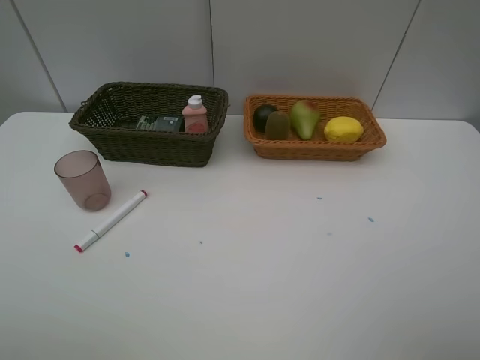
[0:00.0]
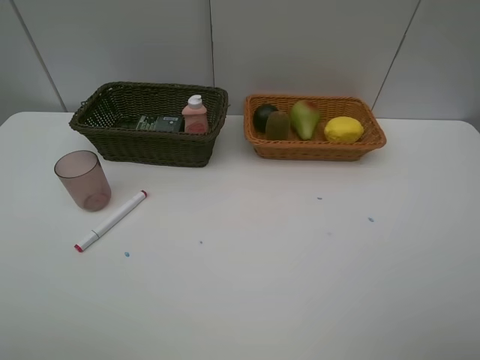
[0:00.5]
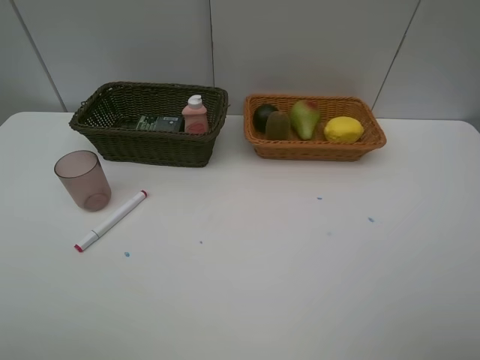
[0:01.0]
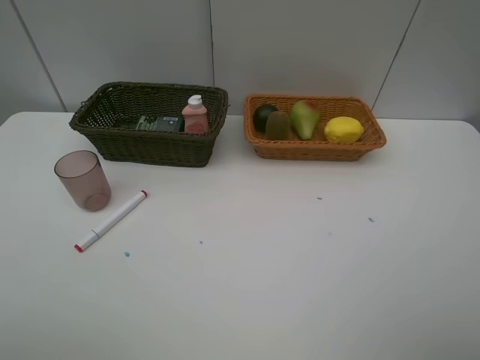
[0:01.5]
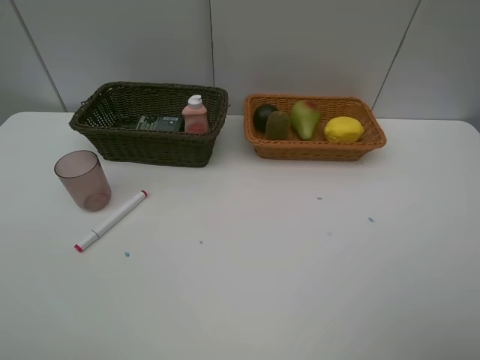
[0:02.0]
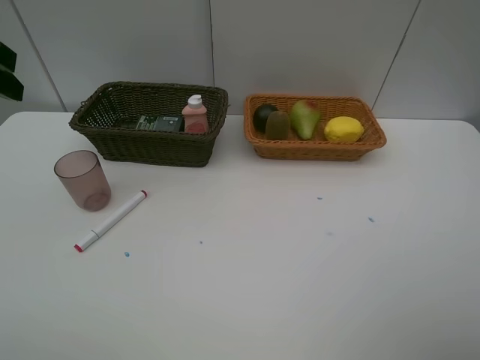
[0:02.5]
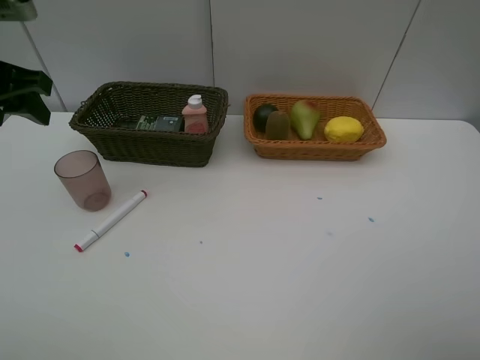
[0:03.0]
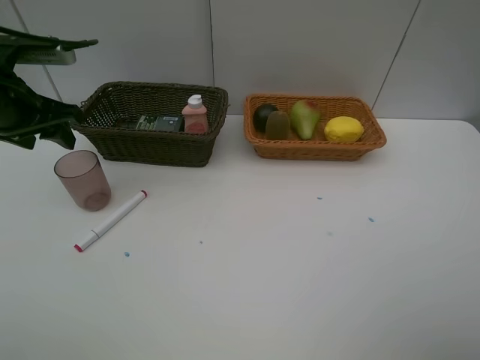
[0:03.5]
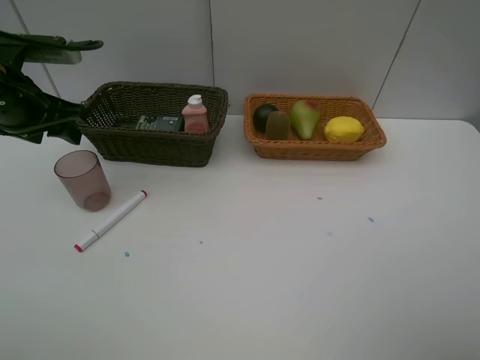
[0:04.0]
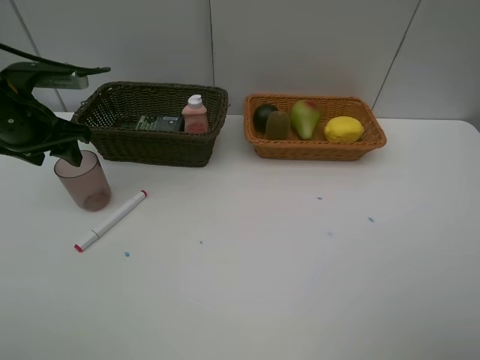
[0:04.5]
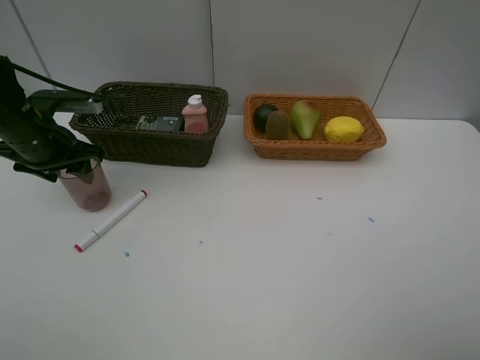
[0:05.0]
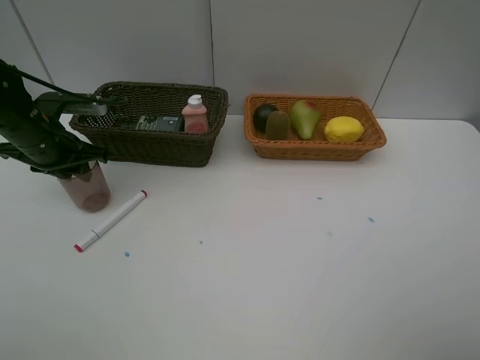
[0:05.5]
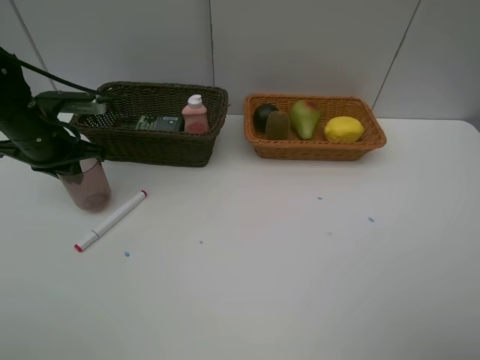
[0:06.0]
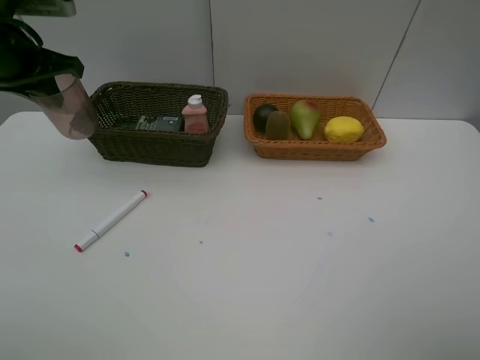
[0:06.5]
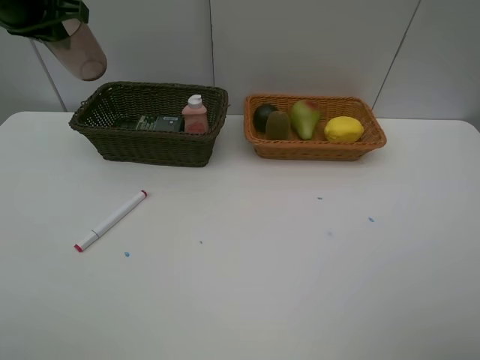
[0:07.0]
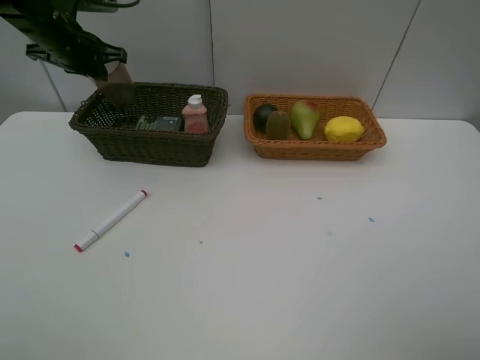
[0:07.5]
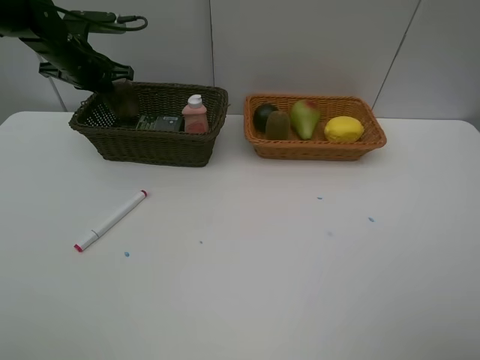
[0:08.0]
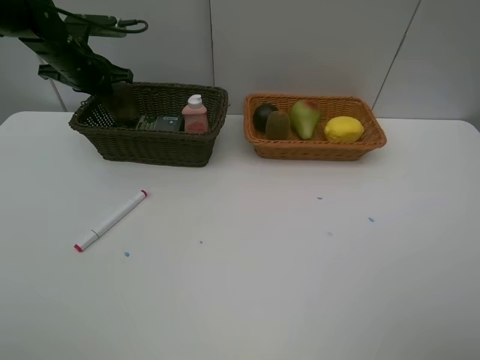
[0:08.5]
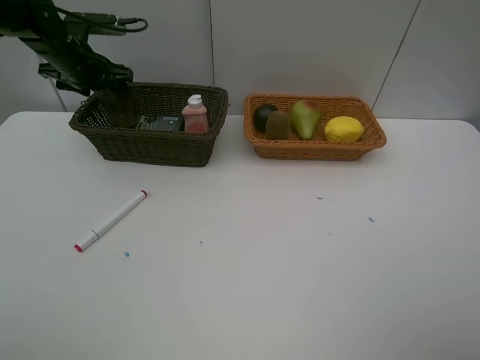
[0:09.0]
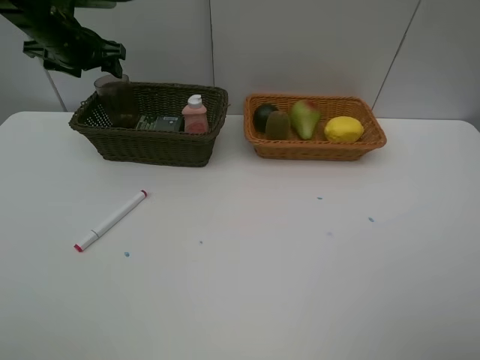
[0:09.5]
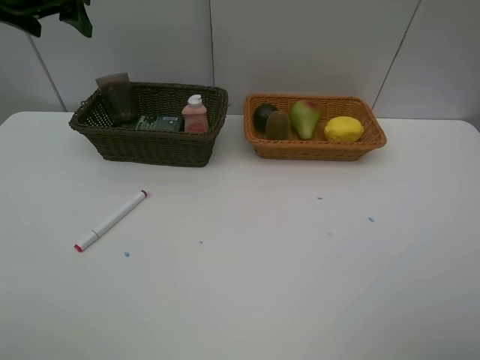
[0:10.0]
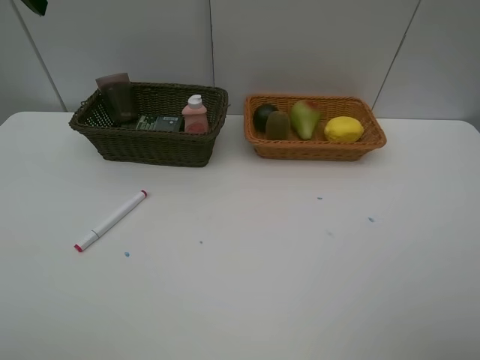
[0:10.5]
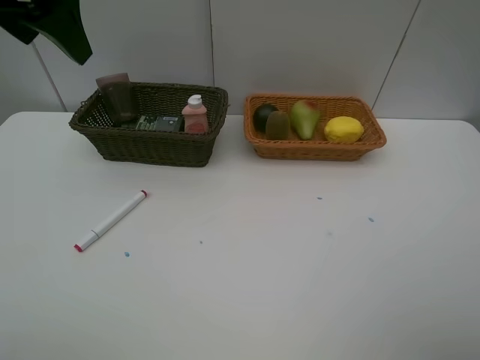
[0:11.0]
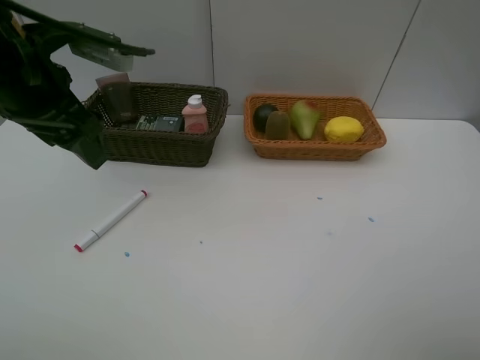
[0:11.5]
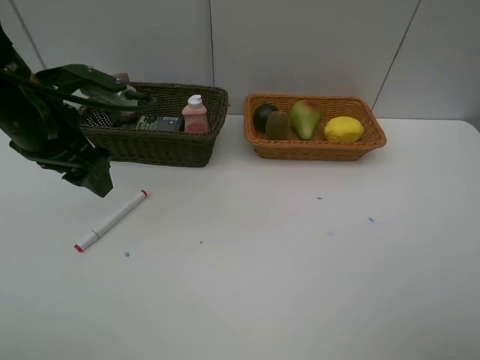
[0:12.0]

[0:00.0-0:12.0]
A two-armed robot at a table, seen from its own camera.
Task of the whole recording: Place multiple objects separately in different baskets.
Step, 0:00.0 to 0:06.0: Pick up the red cup with left gripper.
Step, 0:06.5 to 0:09.0: Place the red cup in the dark basket with left gripper.
0:02.0 to 0:04.0: The left gripper travels forward and downward by some 25 cm.
0:04.0 to 0:06.0: The left gripper moves downward, roughly 5 cm, and closes its fingers.
0:06.0 to 0:08.0: The left gripper moves forward, roughly 15 cm, and reaches approximately 15 cm upward, then returns.
0:08.0 to 0:10.0: The left gripper travels upward and backward by roughly 15 cm, and opens up.
0:10.0 to 0:12.0: The left gripper travels backward, downward and to the right by approximately 20 cm.

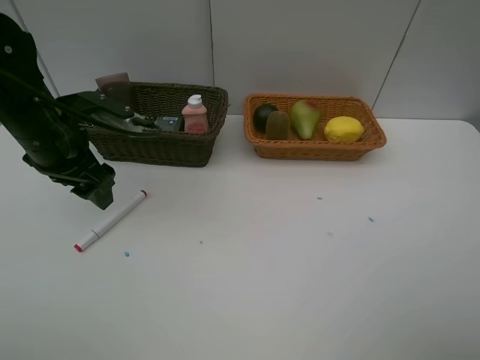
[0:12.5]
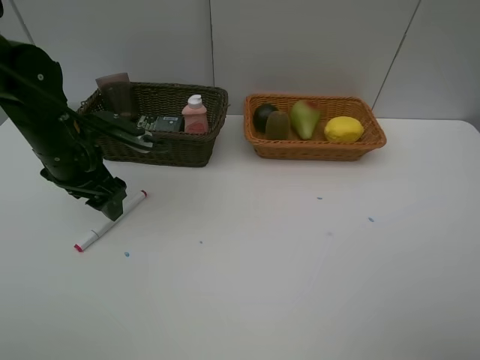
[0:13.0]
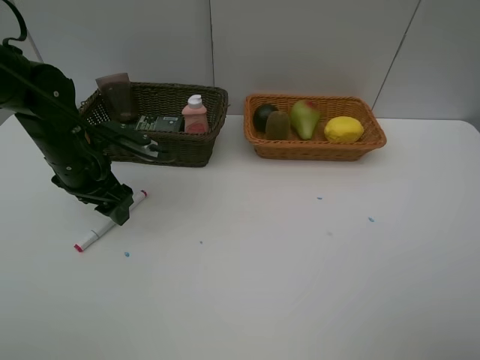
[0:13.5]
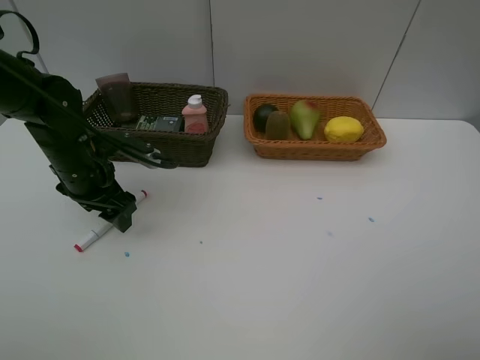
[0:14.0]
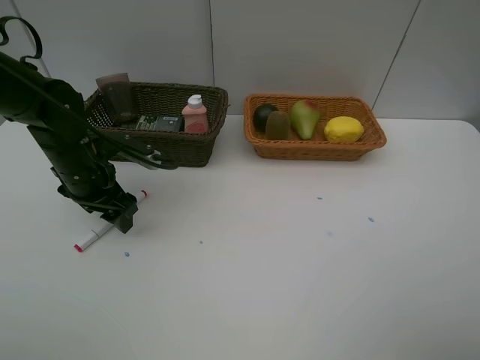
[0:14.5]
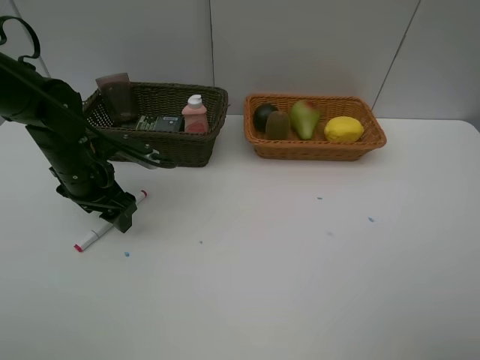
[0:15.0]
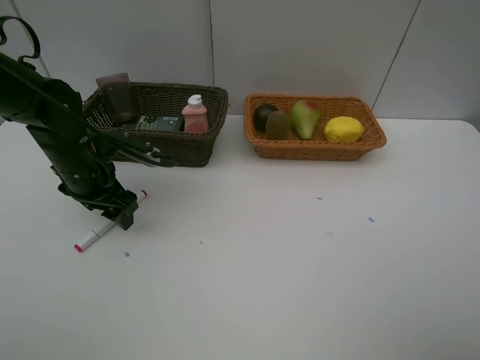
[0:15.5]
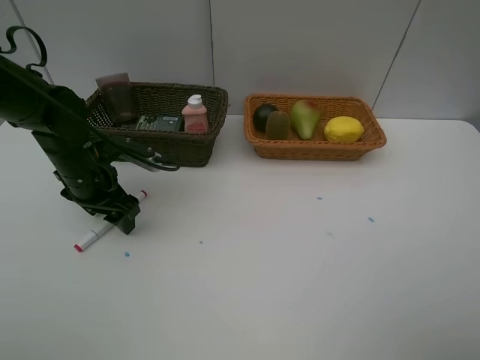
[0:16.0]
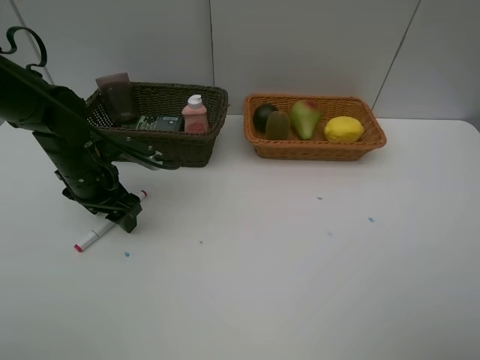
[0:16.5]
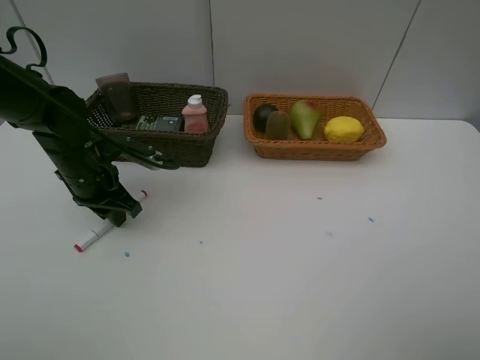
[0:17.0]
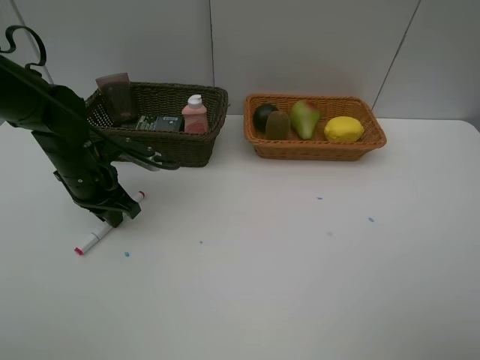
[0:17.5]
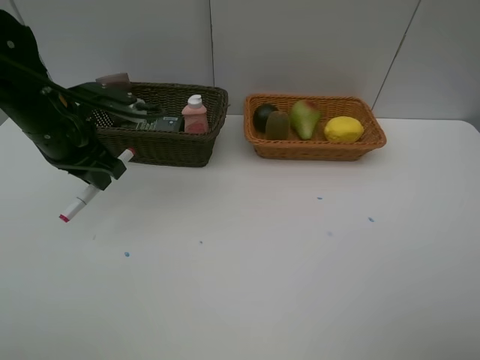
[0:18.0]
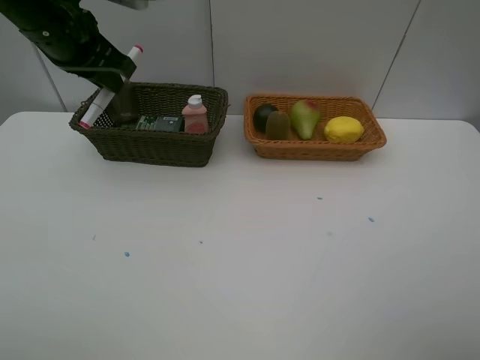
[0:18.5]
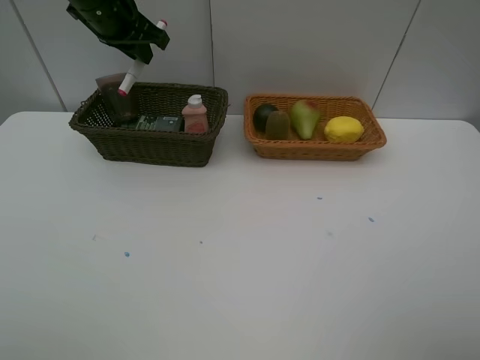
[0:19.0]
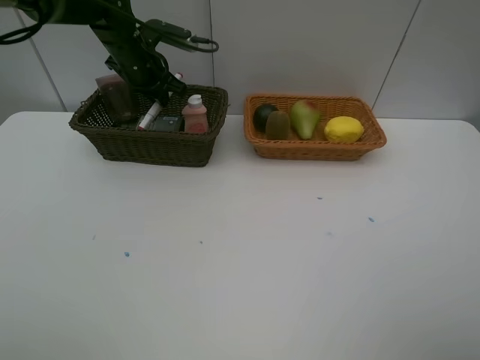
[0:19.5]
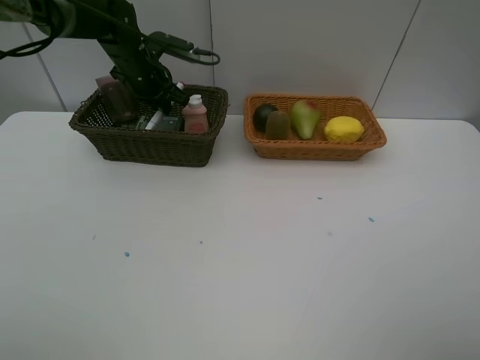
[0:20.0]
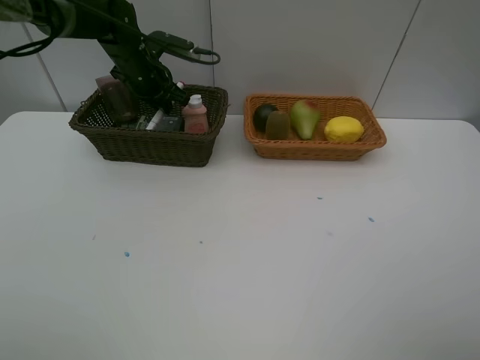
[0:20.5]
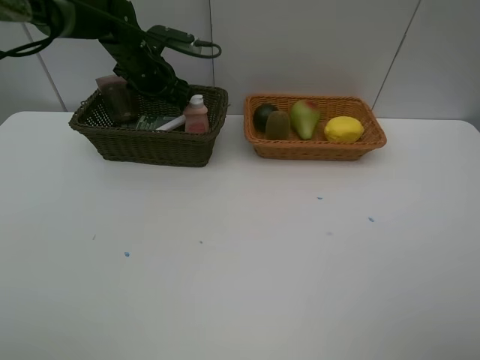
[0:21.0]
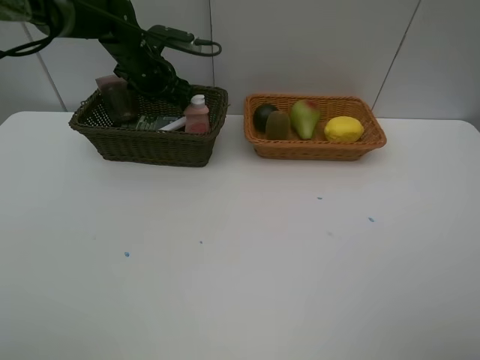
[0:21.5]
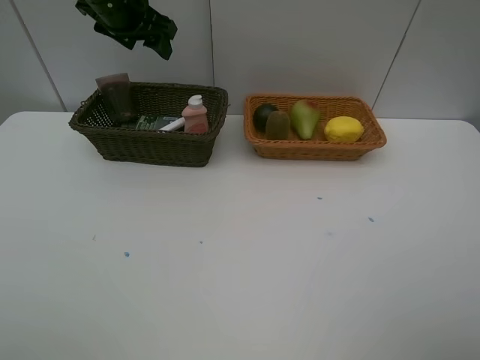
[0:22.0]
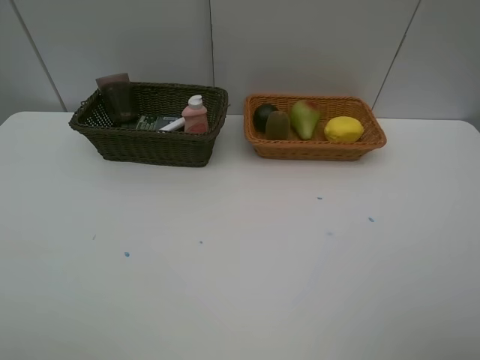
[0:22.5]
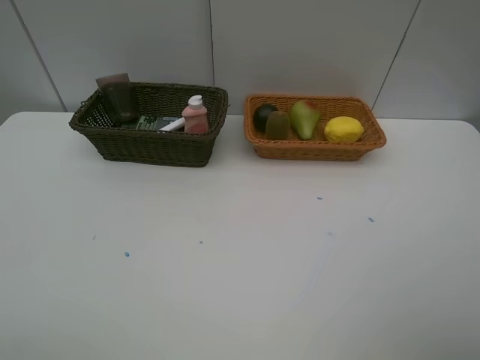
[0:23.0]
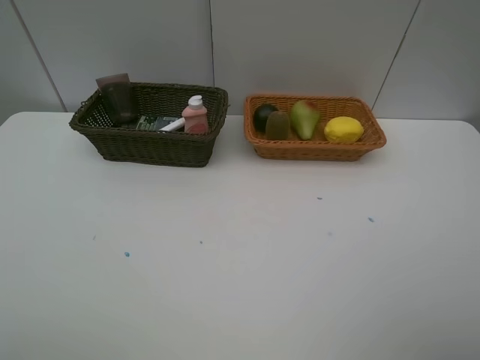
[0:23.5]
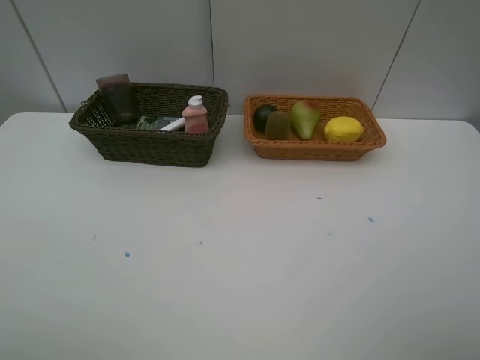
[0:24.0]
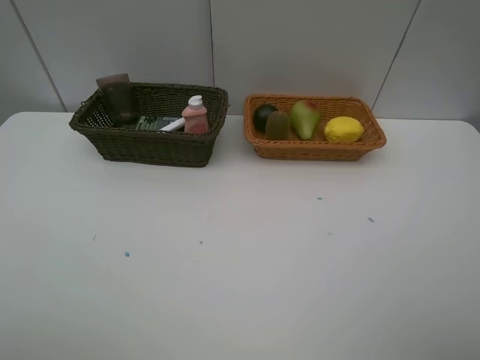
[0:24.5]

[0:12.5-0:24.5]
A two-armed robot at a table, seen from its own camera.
Task of the whole recording: Place multiple objects separately in different baskets.
Step, 0:12.5 to 0:17.0: Pick up the red marker with left gripper.
Step, 0:17.5 to 0:21.5: Place the red marker in the dark basket with left gripper.
0:12.5 to 0:14.5: The left gripper is displaced downward by about 5 cm.
0:14.5 to 0:16.5: Both grippers stay about where they are.
0:16.5 to 0:18.5: The left gripper heads upward, covering approximately 20 cm, and closes its fingers.
0:18.5 to 0:20.5: The left gripper heads forward and downward, covering approximately 20 cm.
0:20.5 to 0:22.5: The left gripper travels upward and backward by roughly 30 cm, and opens its fingers.

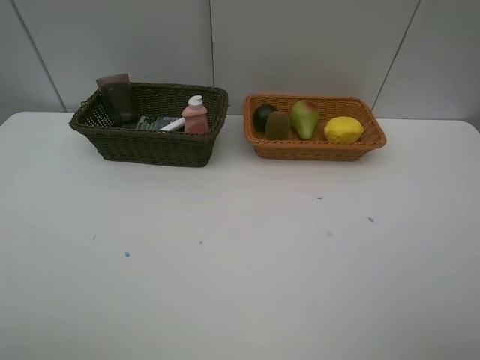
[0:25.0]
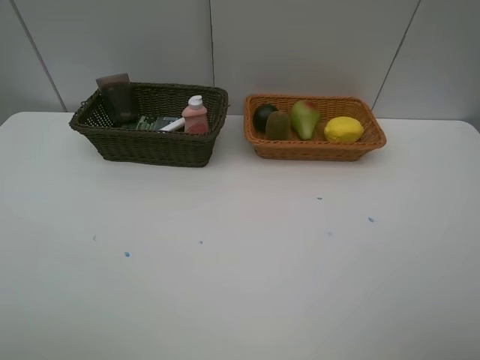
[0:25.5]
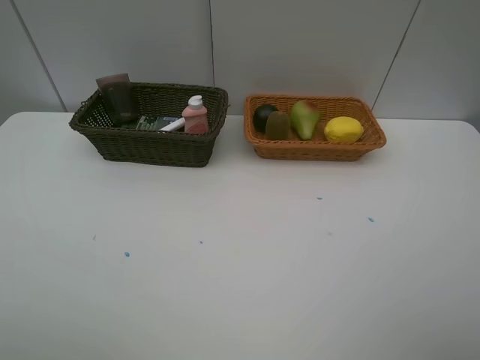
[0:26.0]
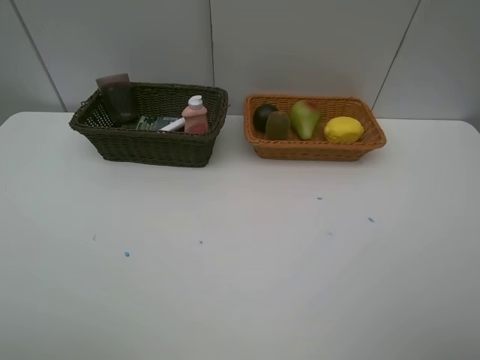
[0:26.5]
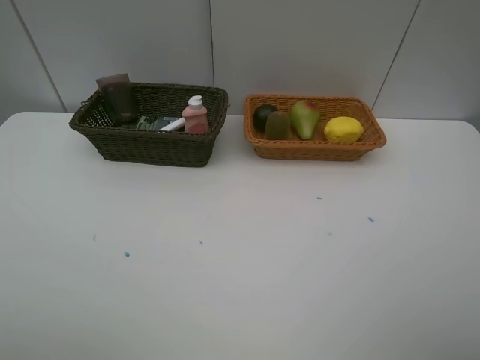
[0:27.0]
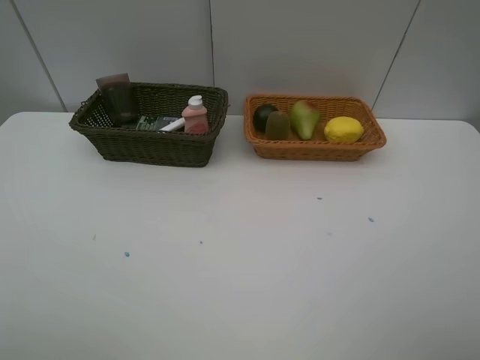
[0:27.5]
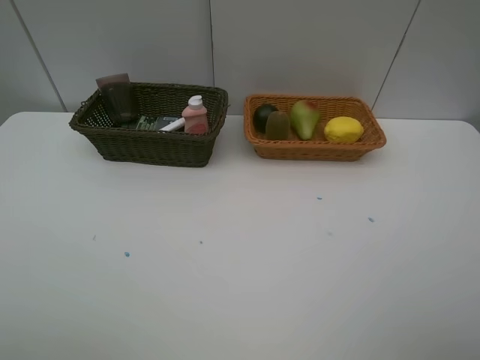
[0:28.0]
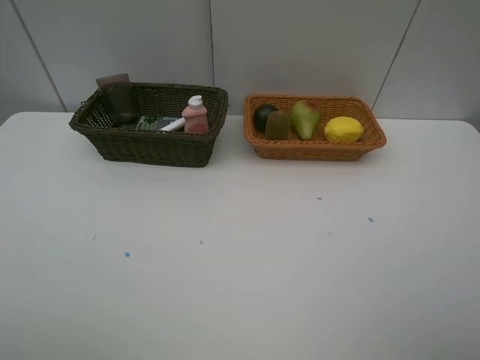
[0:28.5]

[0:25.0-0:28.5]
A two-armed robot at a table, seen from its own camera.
Task of the whole recording: Place multiple objects separately in different baskets.
0:27.0 to 0:28.5: The two grippers keep their place.
